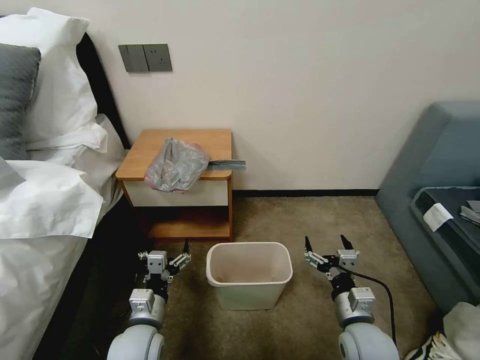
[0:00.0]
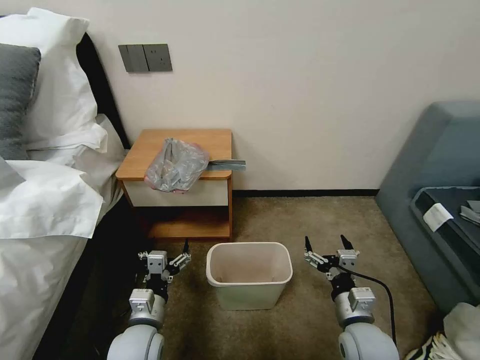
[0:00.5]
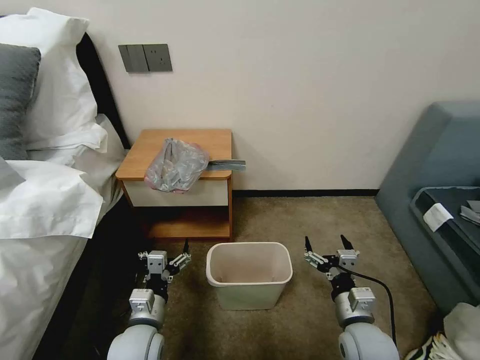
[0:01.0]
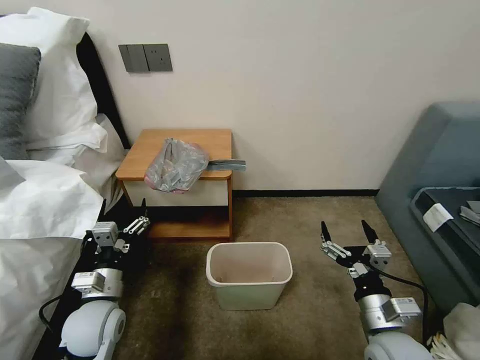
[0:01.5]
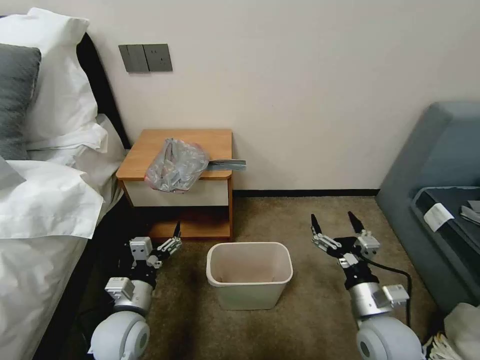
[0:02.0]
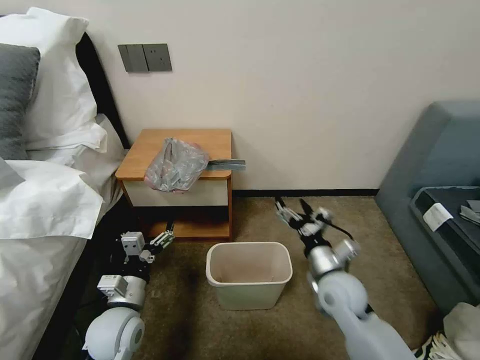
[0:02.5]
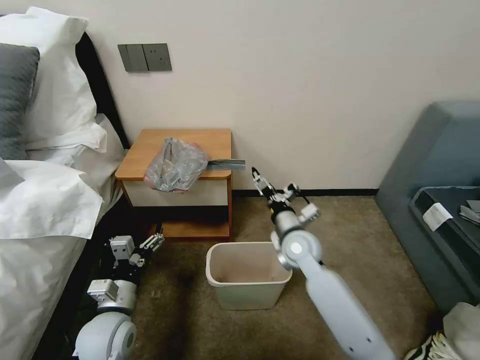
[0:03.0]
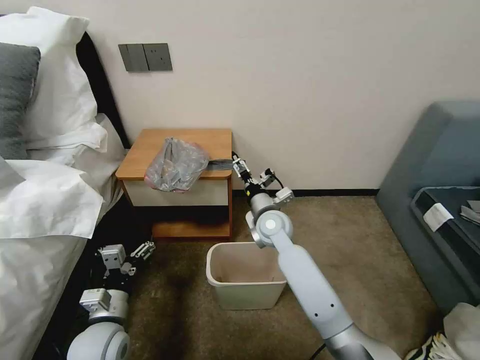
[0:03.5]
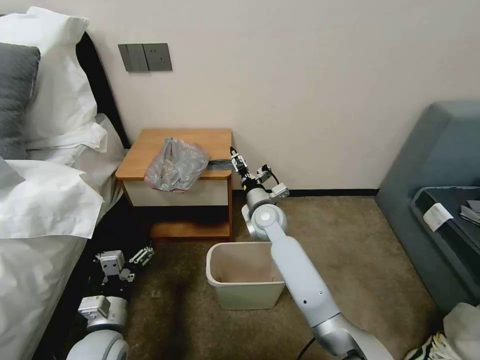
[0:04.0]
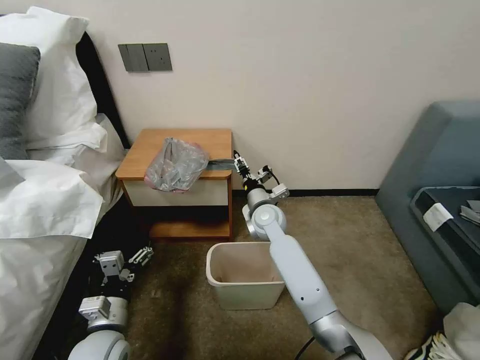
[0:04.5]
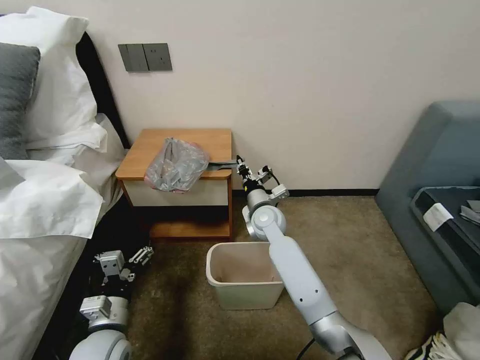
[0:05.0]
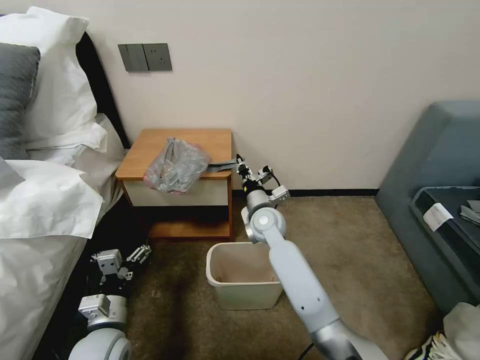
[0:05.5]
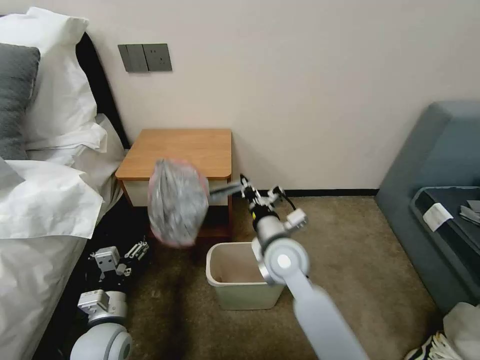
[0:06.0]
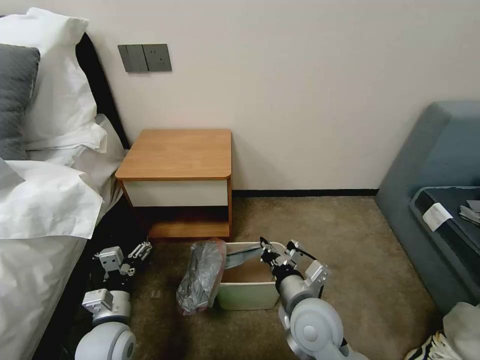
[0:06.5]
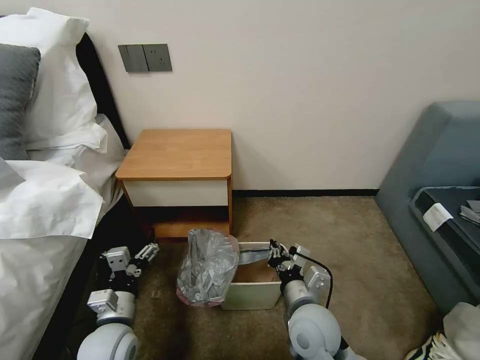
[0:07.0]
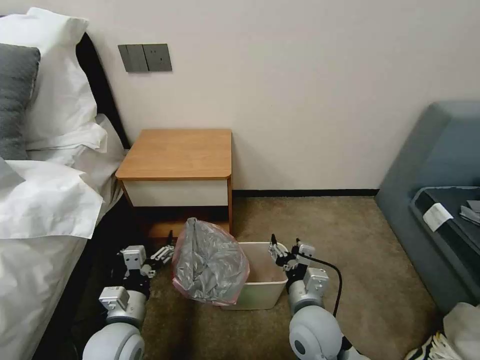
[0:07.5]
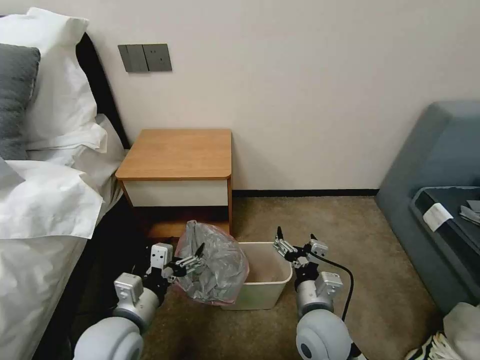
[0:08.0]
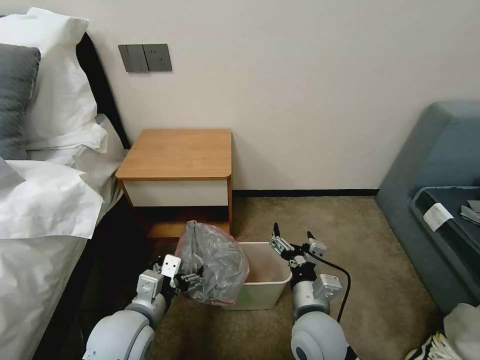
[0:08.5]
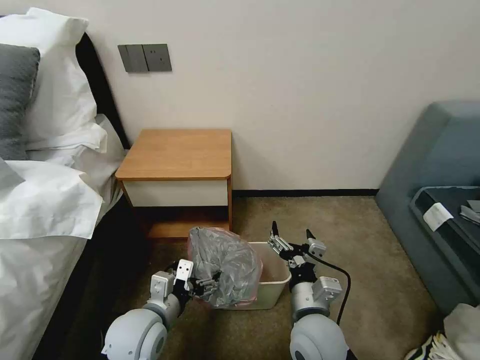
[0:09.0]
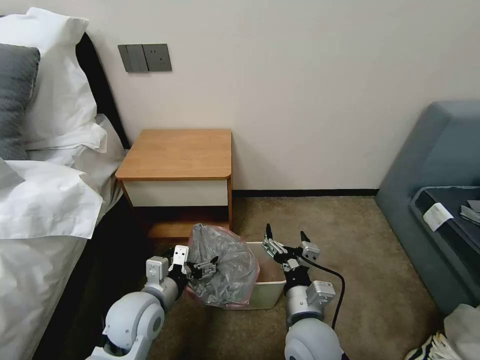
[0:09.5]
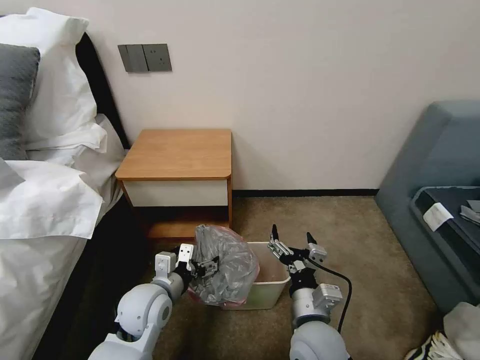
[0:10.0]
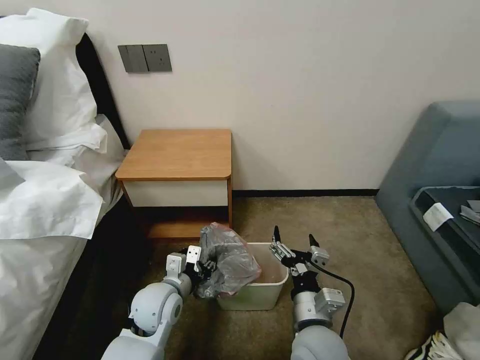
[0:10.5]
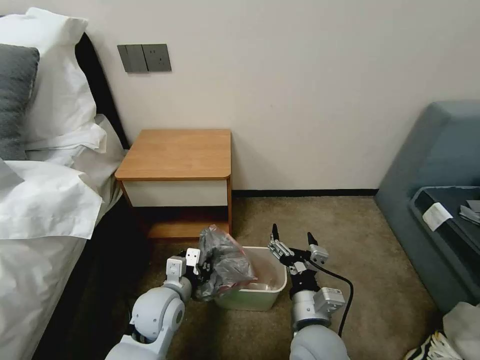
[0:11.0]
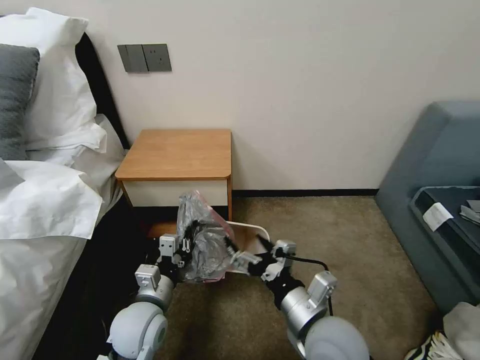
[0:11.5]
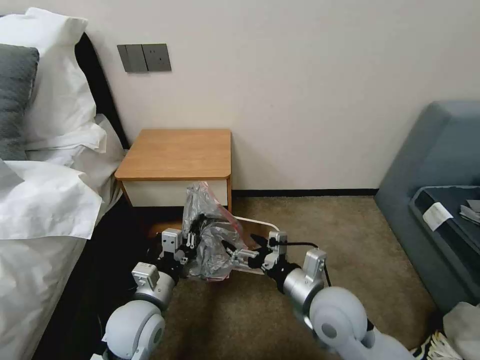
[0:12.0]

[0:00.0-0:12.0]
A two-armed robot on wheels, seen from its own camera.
Task of the whole recording: Pick up the garbage bag from the table and place it over the trash can.
0:02.0 to 0:04.0: The right gripper heads forward and to the left, covering roughly 35 cm.
0:04.0 to 0:06.0: The right gripper moves backward, approximately 15 cm, and closes up.
0:06.0 to 0:08.0: The right gripper heads backward, downward and to the right, covering approximately 15 cm, and opens up. The left gripper goes some 5 cm upward.
0:08.0 to 0:10.0: The left gripper moves forward, about 5 cm.
0:10.0 to 0:12.0: The left gripper closes up; the right gripper ends up roughly 5 cm from where it was.

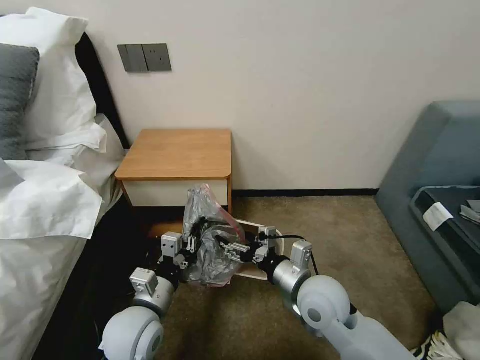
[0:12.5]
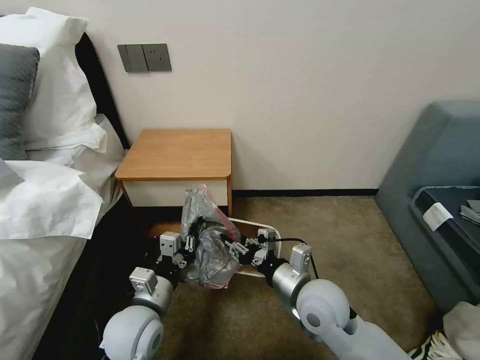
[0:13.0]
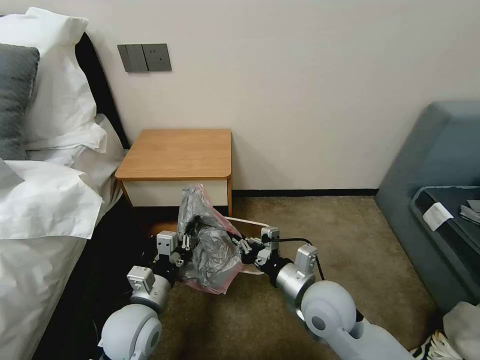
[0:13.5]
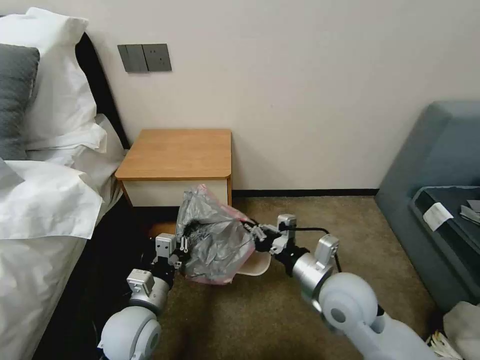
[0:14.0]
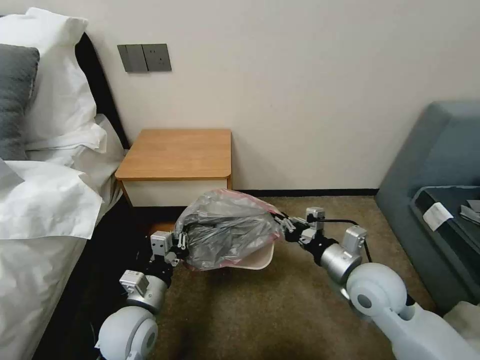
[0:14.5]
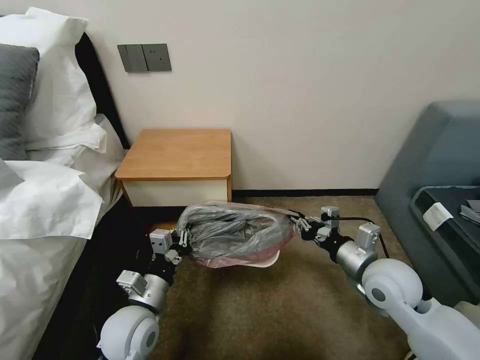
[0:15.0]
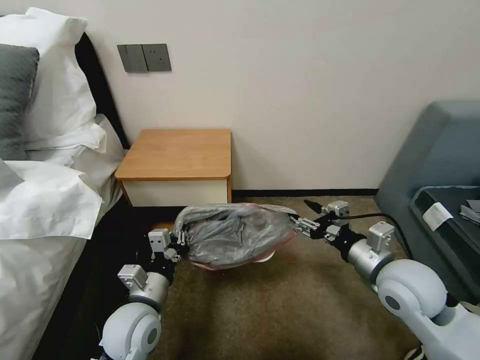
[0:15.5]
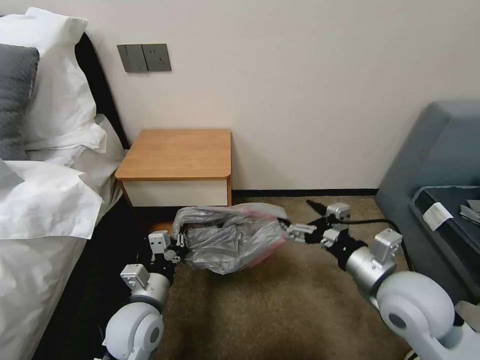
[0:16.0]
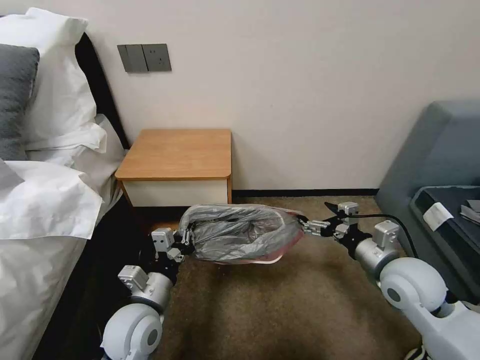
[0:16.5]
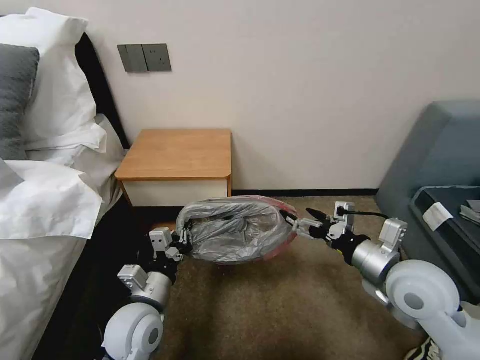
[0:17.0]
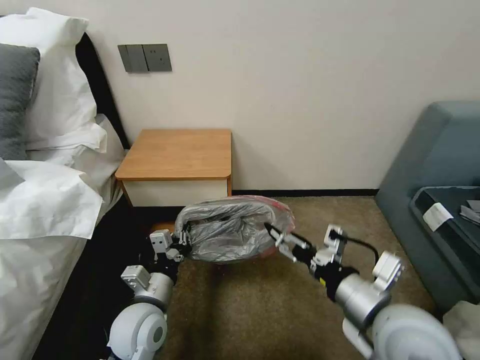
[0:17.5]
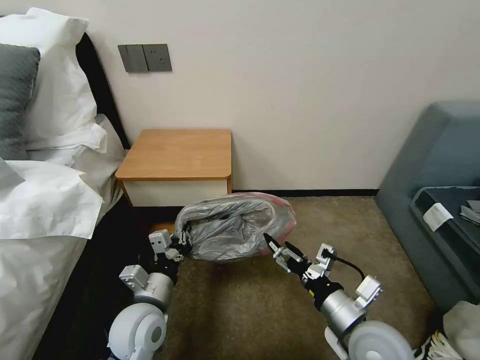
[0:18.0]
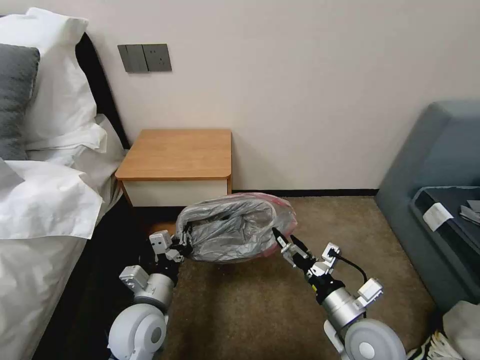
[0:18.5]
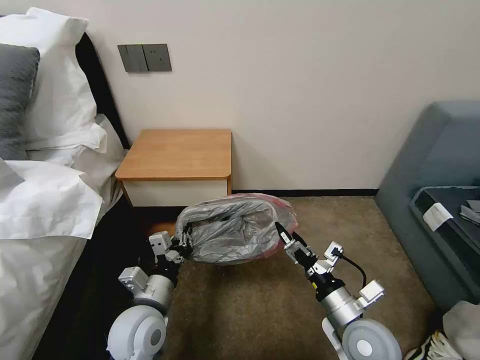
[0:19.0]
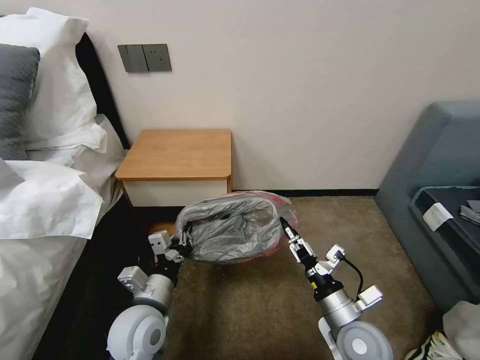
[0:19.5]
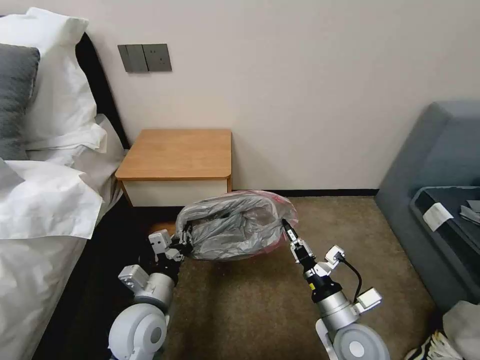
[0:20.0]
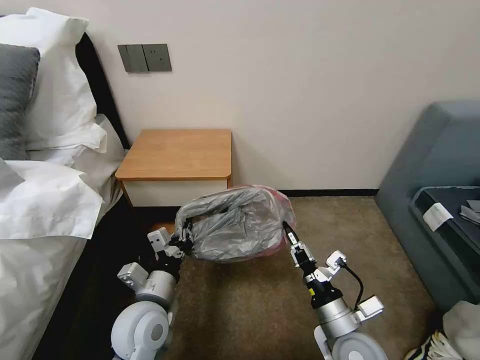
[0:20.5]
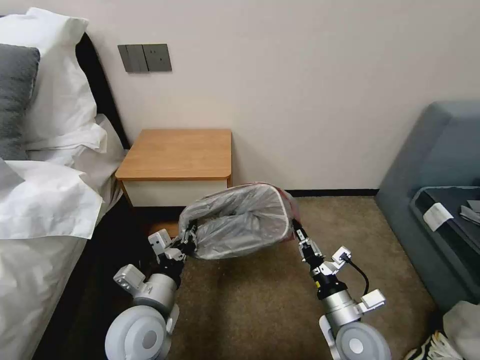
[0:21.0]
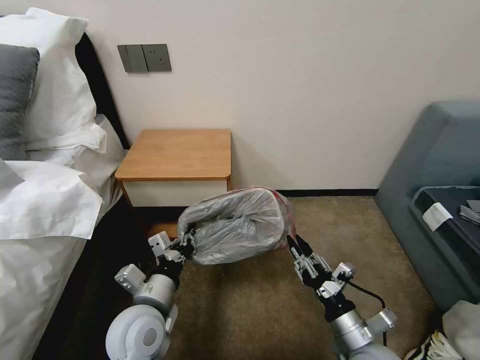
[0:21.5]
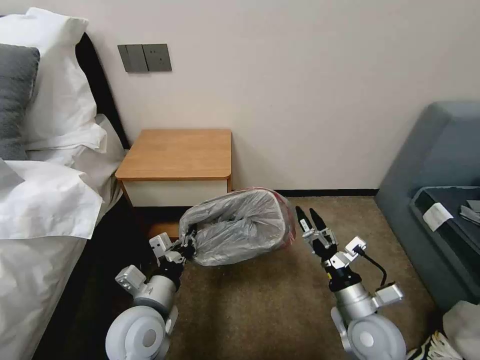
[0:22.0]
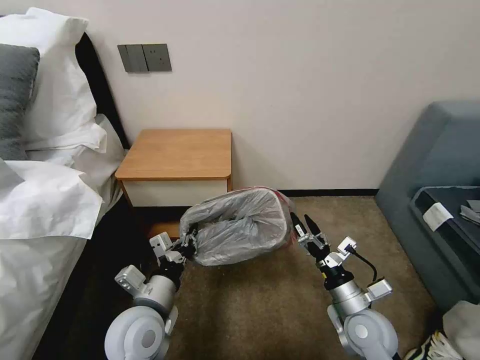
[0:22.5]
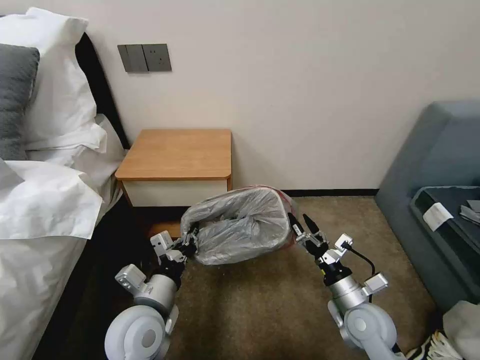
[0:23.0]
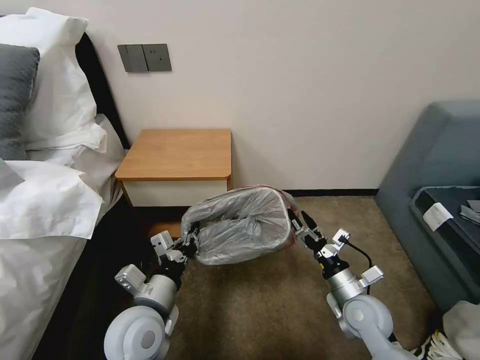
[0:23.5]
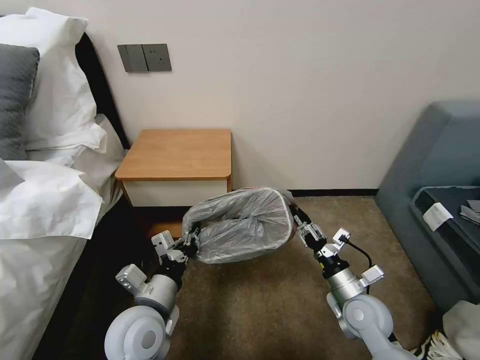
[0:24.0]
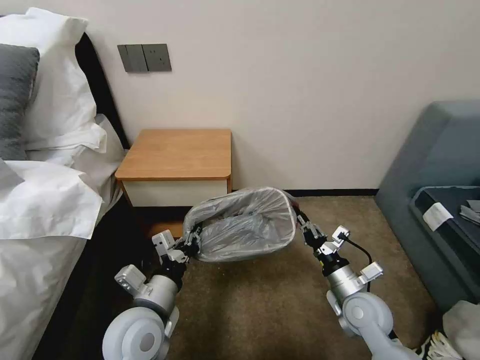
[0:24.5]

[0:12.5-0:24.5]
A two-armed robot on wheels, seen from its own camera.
Task of the whole recording: Pick up the garbage bag from the table and place it over the trash can.
0:12.5 to 0:14.5: The right gripper is displaced to the right by about 10 cm, and closes.
0:14.5 to 0:16.5: The right gripper goes about 5 cm to the right, and opens up.
0:16.5 to 0:18.5: The right gripper heads backward, to the left and downward, covering about 15 cm.
0:18.5 to 0:20.5: The right gripper closes its fingers.
0:20.5 to 0:22.5: The right gripper changes place by some 5 cm, and opens up.
0:22.5 to 0:24.5: The right gripper closes up.

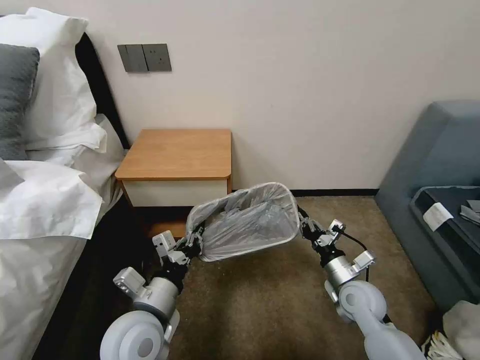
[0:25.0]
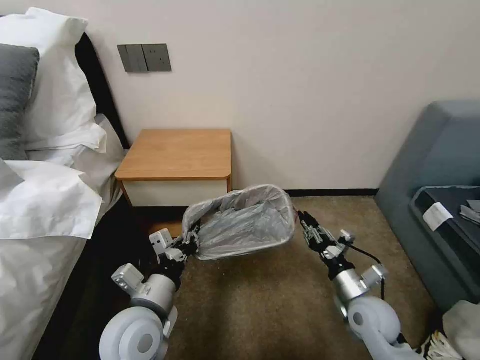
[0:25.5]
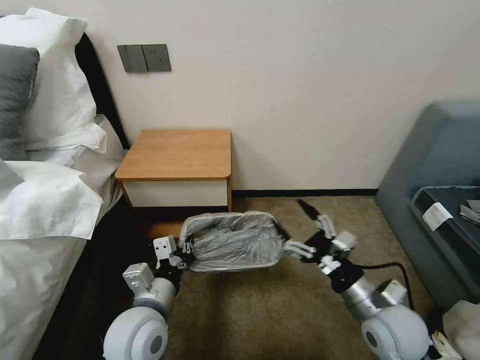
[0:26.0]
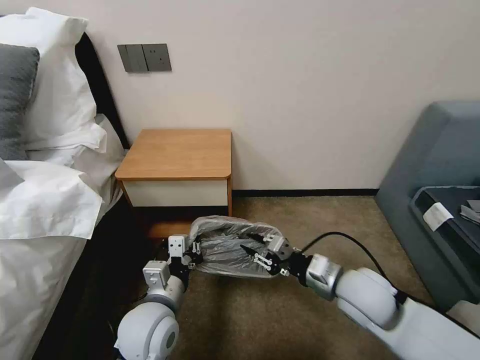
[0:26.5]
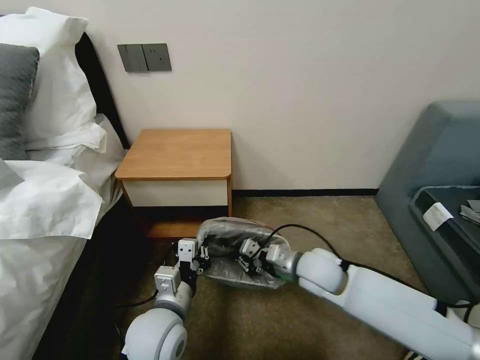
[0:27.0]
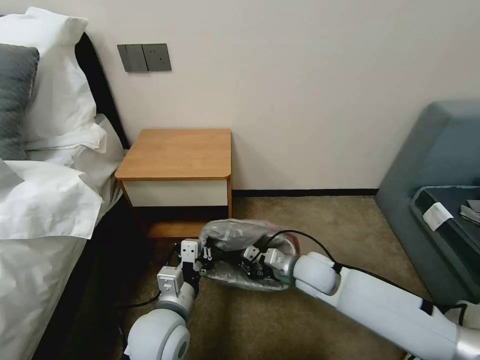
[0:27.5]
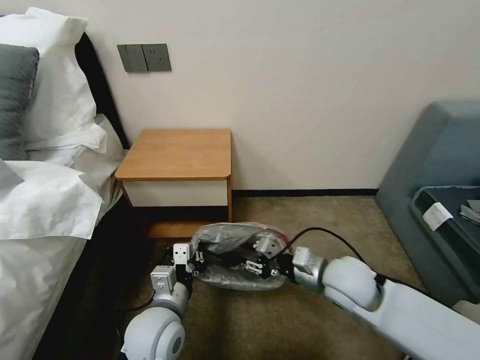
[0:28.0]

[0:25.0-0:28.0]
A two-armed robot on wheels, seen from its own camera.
Task of the whole recording: Pick up the garbage bag from the table and place it over the trash can.
0:25.0 to 0:26.5: The right gripper is displaced upward and to the left by roughly 15 cm, and opens, then closes once more.
0:26.5 to 0:28.0: The right gripper goes downward and returns, about 10 cm each way.
